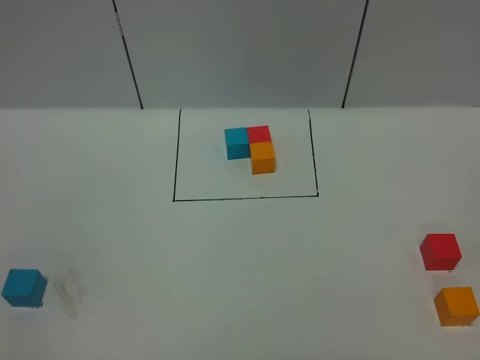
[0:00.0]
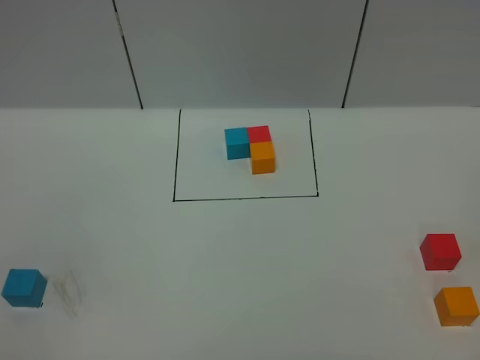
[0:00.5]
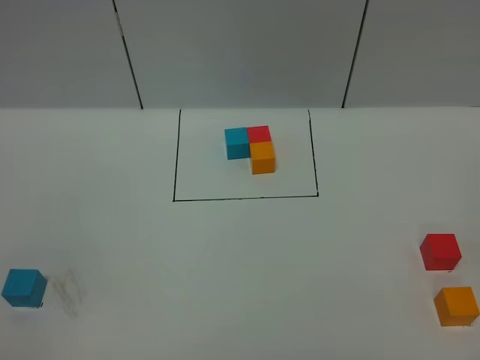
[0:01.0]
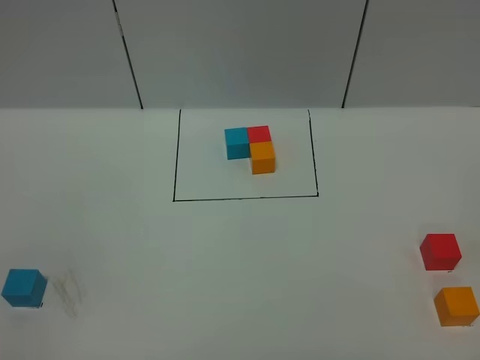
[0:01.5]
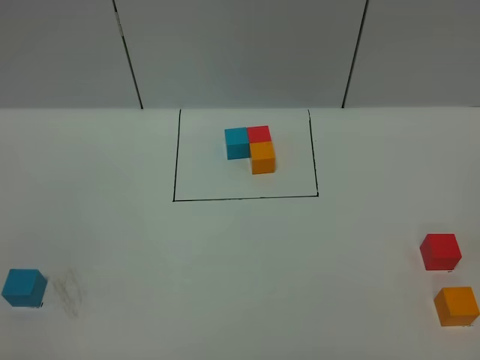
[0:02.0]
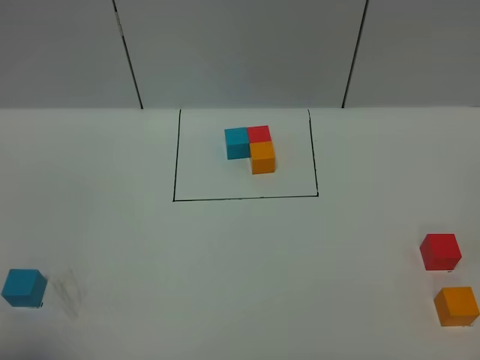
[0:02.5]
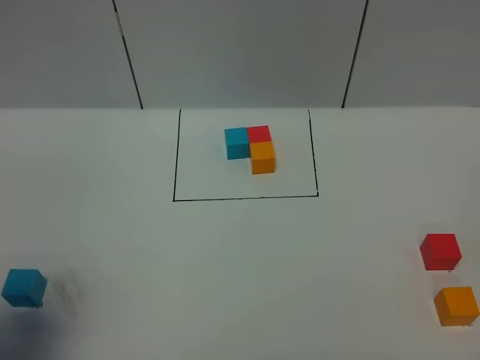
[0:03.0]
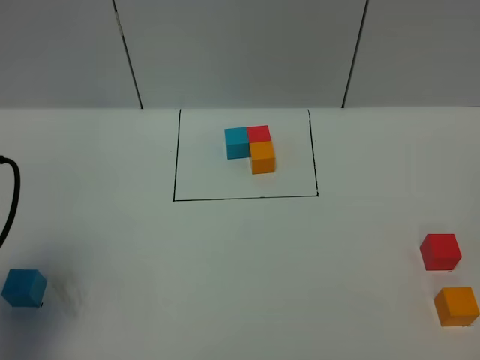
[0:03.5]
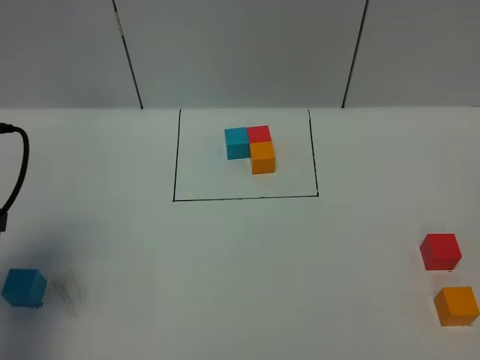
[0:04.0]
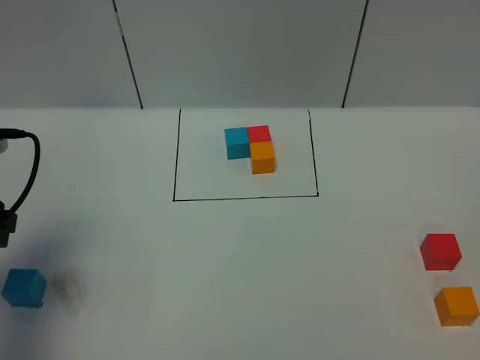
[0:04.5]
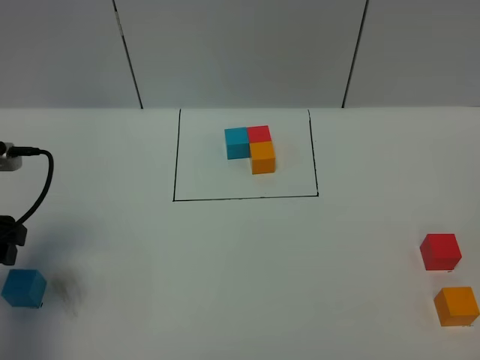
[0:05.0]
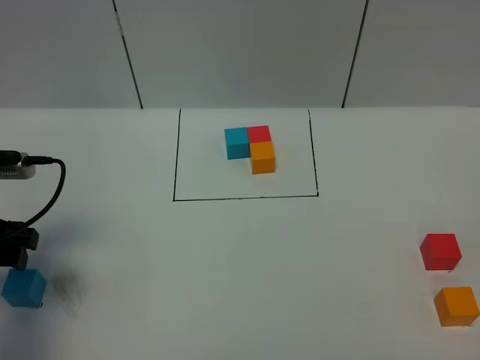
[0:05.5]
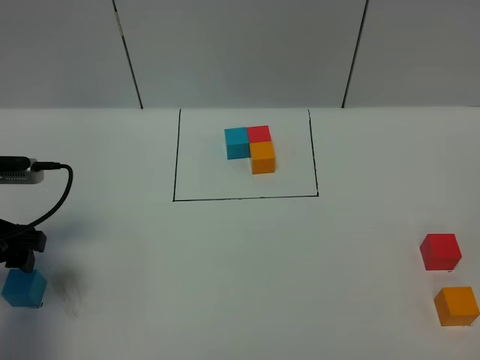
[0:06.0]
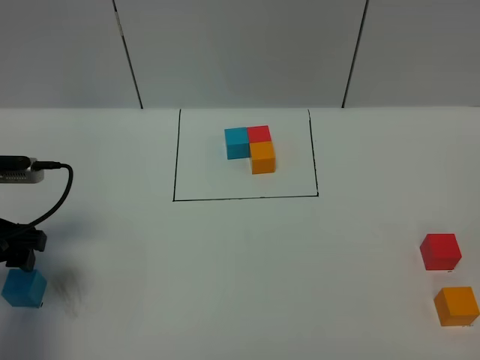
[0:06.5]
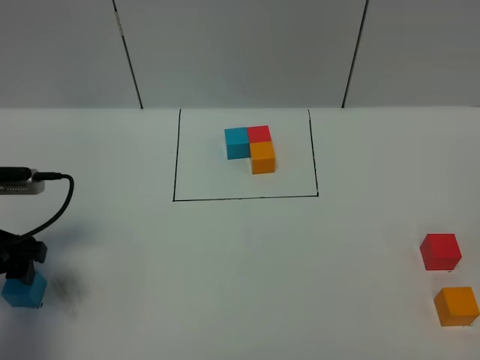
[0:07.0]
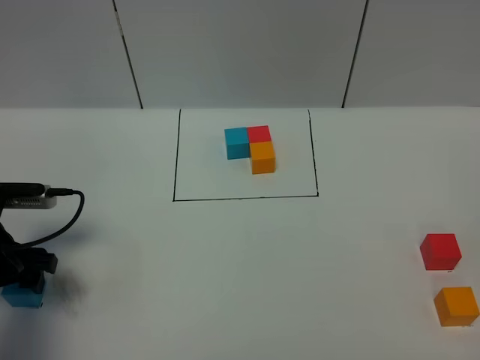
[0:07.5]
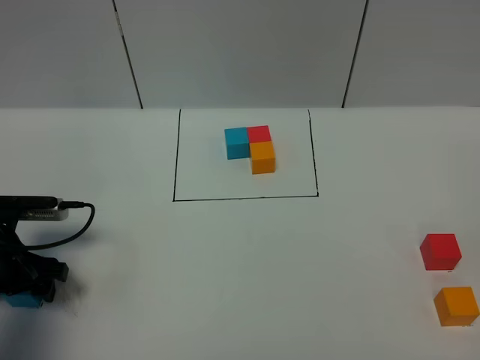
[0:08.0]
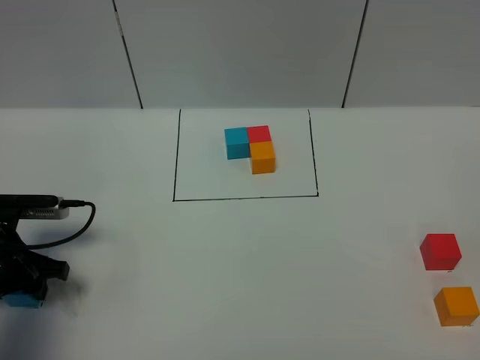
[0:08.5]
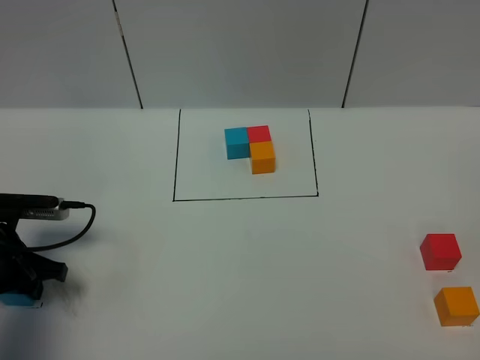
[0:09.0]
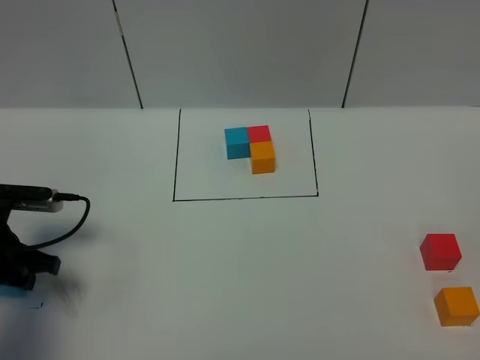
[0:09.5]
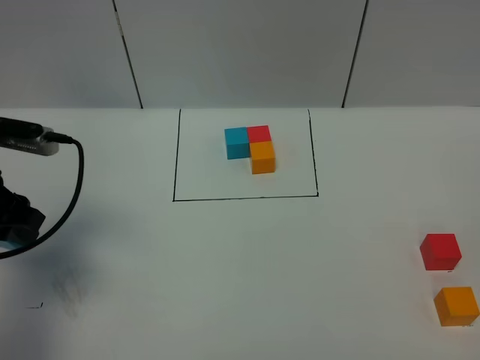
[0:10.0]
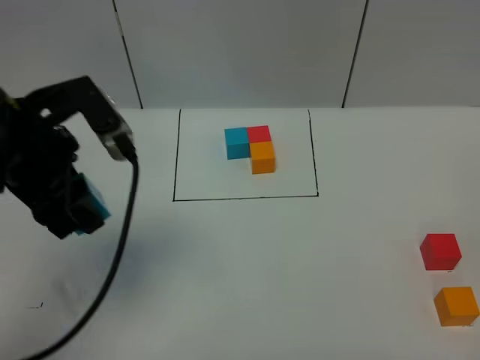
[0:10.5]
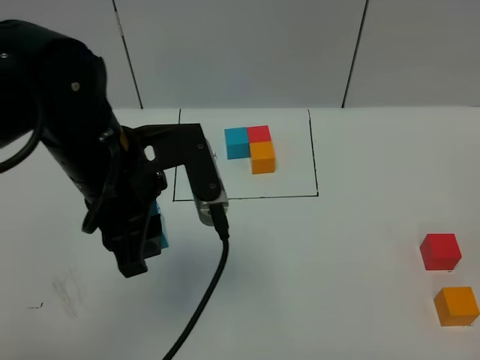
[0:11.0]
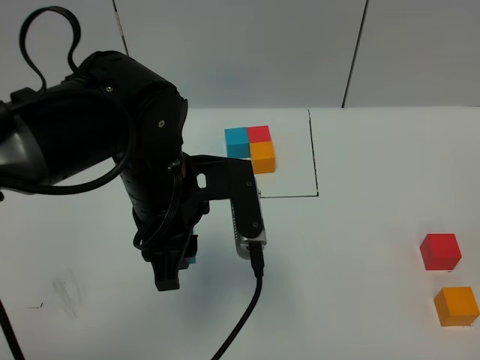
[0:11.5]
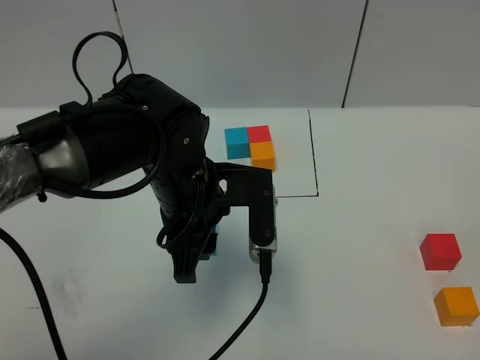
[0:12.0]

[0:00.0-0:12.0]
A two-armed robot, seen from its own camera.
Task of the whole recording: According to the building block template in front, assemble the scattered blocks together.
0:02.0 to 0:04.0: The left gripper goes some 25 cm forward.
0:04.0 to 0:06.0: The left gripper travels downward by about 10 cm.
0:06.0 to 0:08.0: The left gripper travels downward by about 10 cm.
0:08.0 to 0:10.0: The left gripper travels upward by about 15 cm, and closes.
0:10.0 to 0:12.0: The left gripper moves to the right, approximately 25 cm.

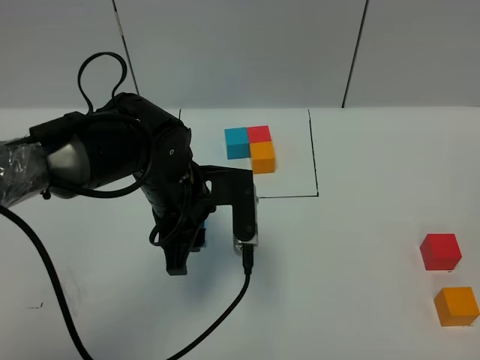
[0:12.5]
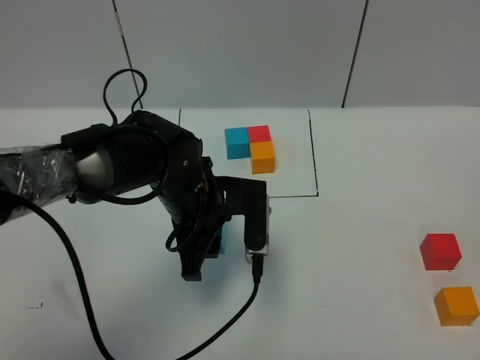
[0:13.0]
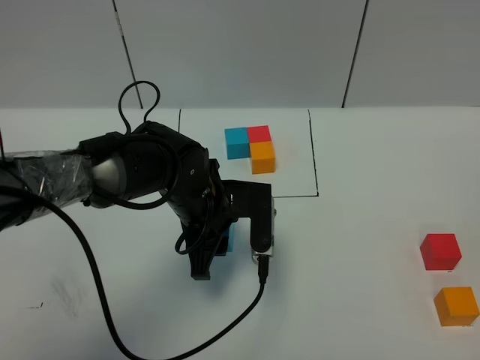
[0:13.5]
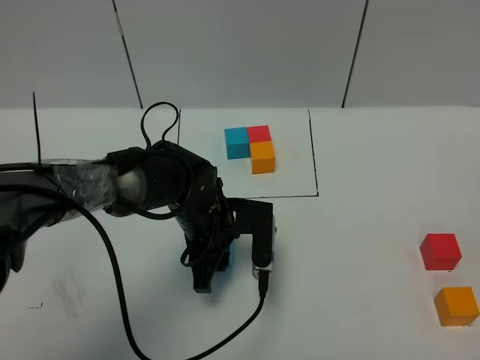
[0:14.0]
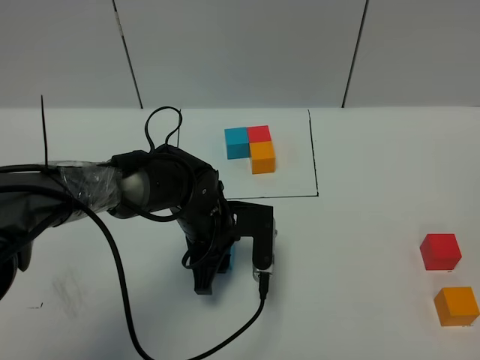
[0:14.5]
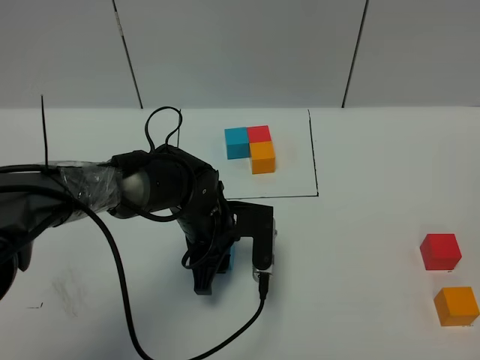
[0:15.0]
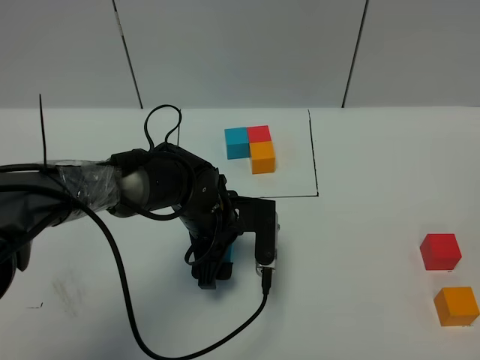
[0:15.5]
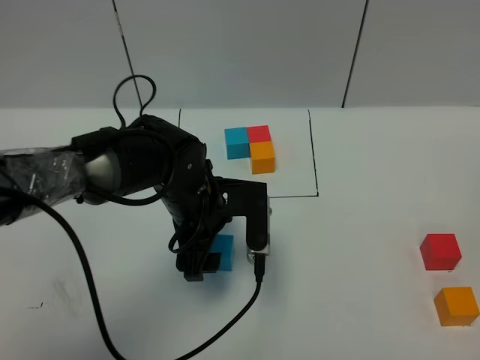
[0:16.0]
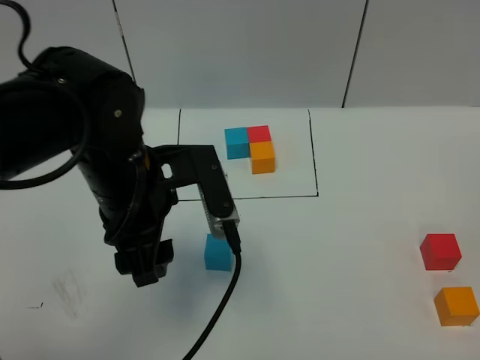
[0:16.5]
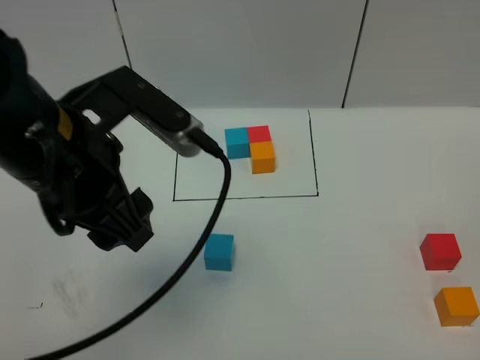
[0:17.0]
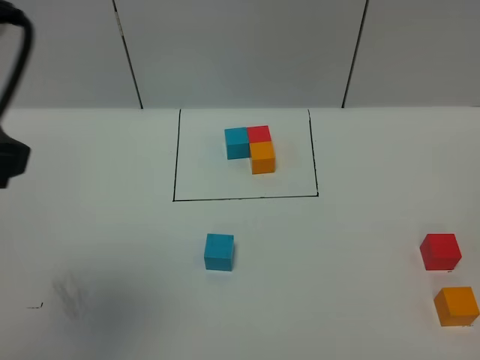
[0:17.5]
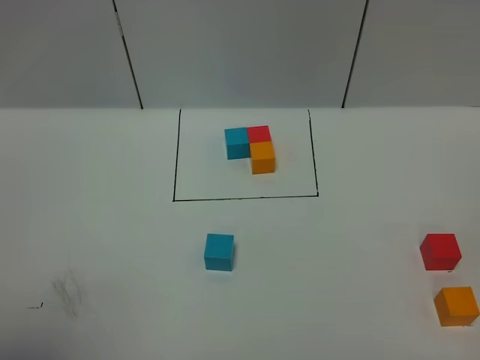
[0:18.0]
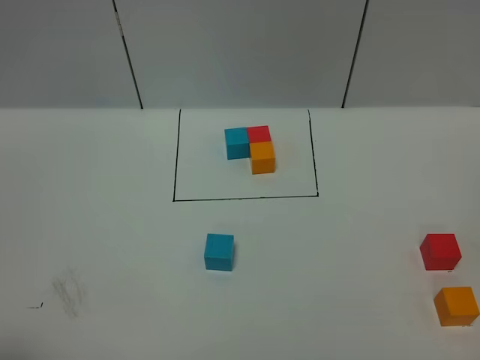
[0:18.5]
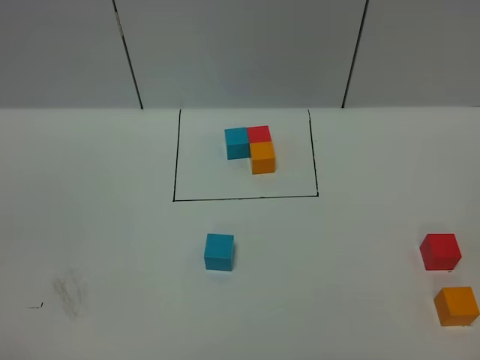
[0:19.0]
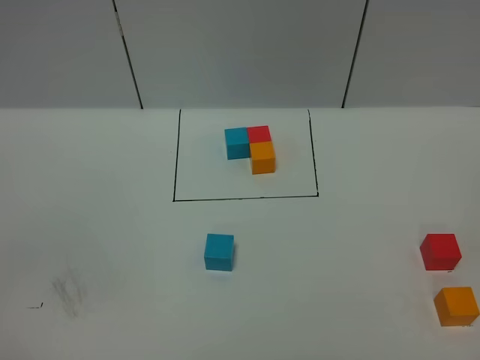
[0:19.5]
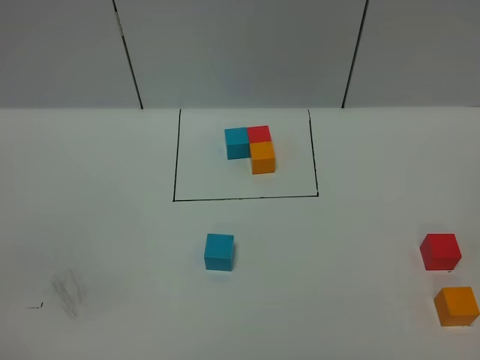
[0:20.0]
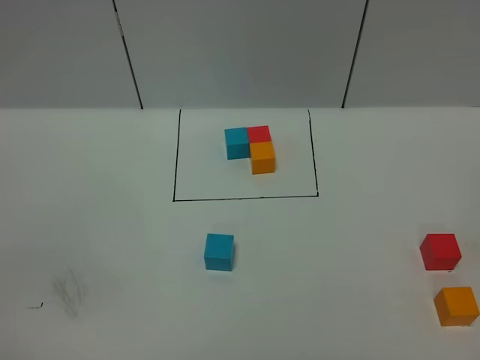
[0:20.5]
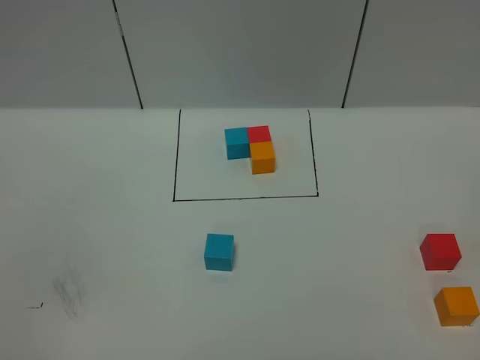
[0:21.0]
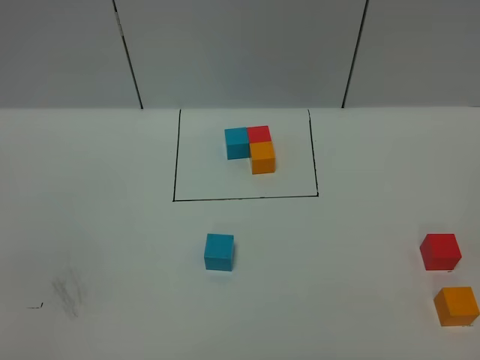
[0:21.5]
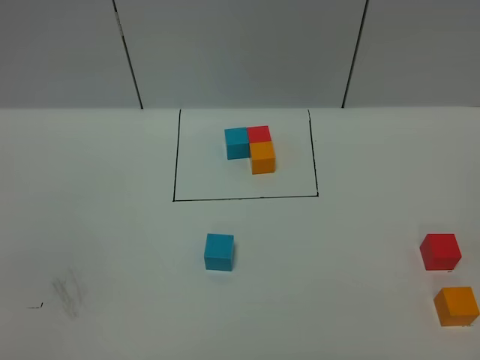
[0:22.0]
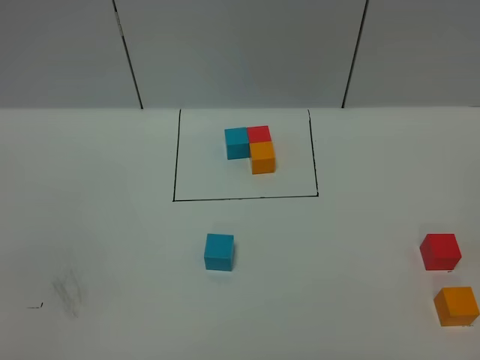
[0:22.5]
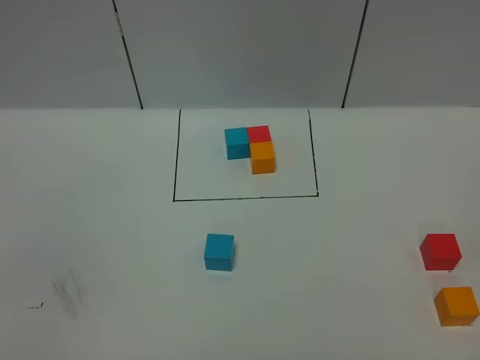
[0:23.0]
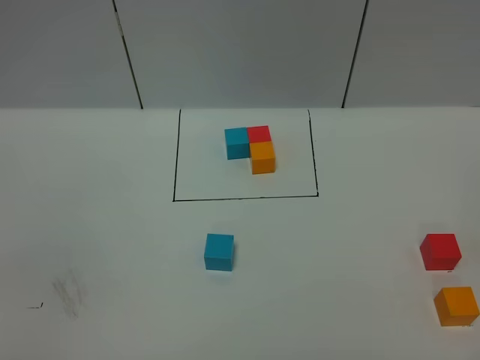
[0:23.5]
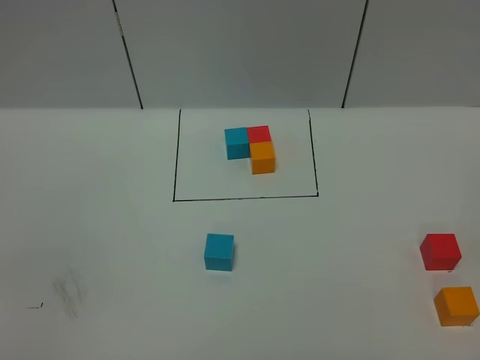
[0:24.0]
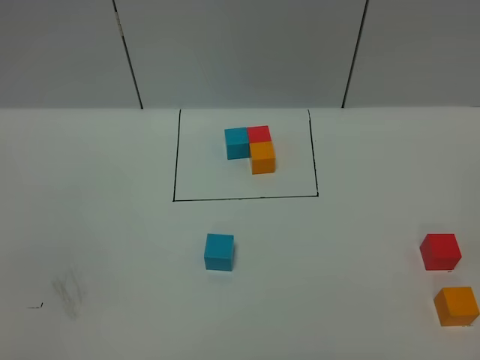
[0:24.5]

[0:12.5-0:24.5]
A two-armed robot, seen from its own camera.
Task of the whole recording: According to the building block template in front, assemble the scattered blocks together.
Step, 0:12.5 to 0:15.5: Put the blue cube in the center of the table.
0:12.5 to 0:14.5: The left gripper shifts approximately 10 cm downward.
0:14.5 to 0:16.5: The left gripper travels upward and backward by roughly 20 cm, and opens up.
0:16.5 to 0:18.5: The left gripper shifts approximately 35 cm backward, to the left and upward.
0:22.5 to 0:24.5: Both grippers stay about where they are.

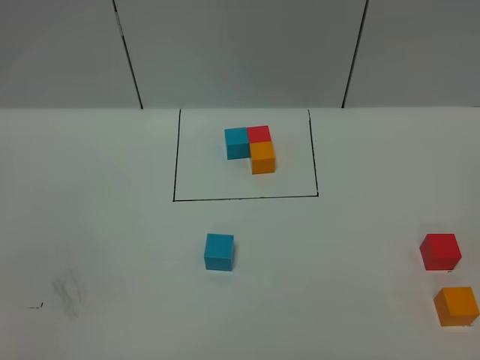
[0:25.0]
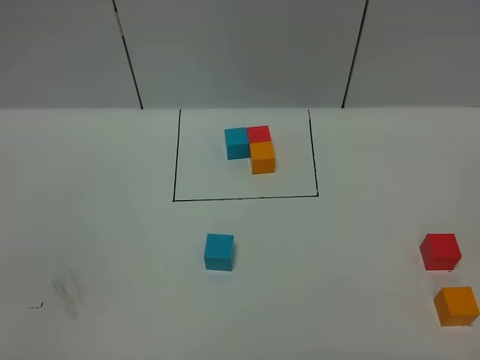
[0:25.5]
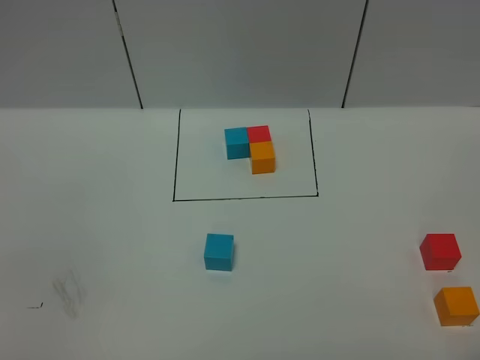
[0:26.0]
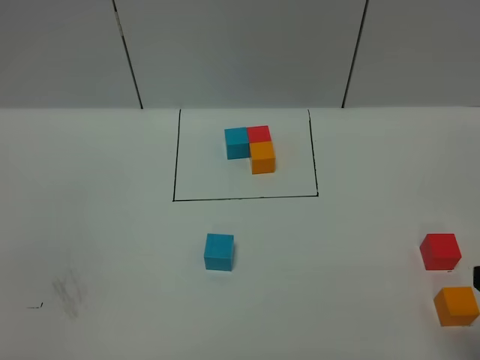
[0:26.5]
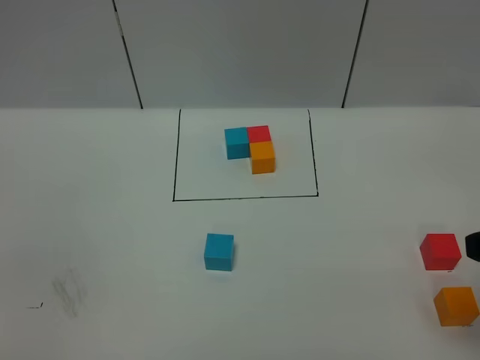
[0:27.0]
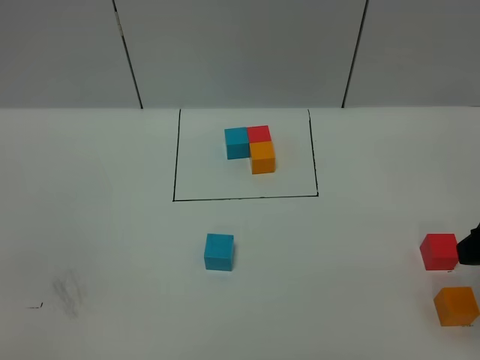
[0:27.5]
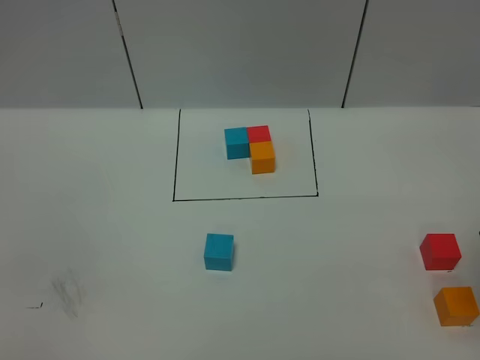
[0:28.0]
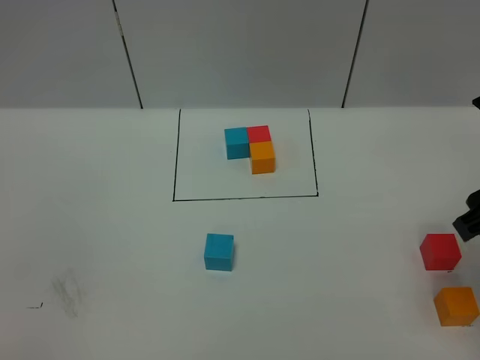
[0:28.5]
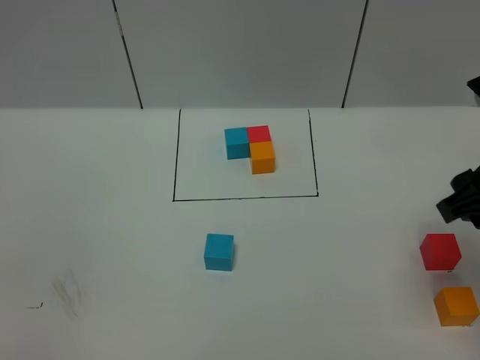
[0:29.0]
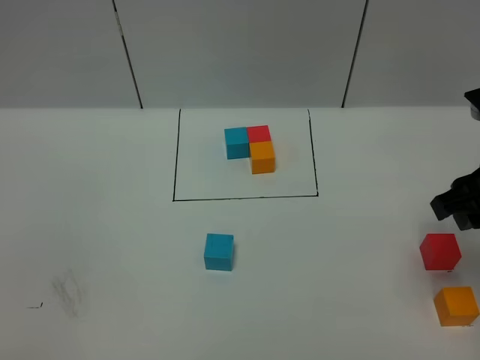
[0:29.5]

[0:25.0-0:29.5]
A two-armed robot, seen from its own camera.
Task of the whole recording: According to the building block template in front, assemble the scattered blocks together.
0:25.0 to 0:27.0: The right gripper is displaced forward by about 15 cm.
0:27.0 to 0:29.5: The right gripper heads forward, covering about 10 cm, and closes its fingers.
